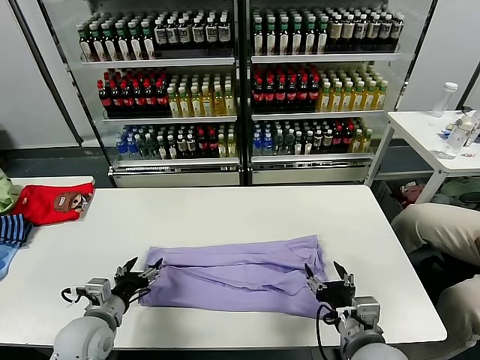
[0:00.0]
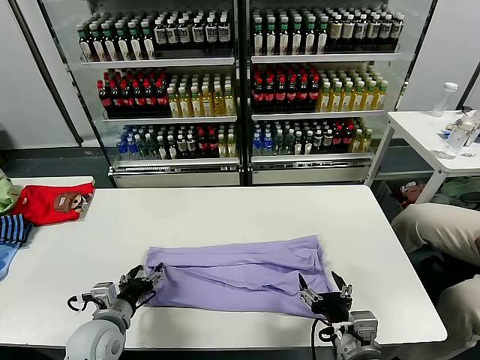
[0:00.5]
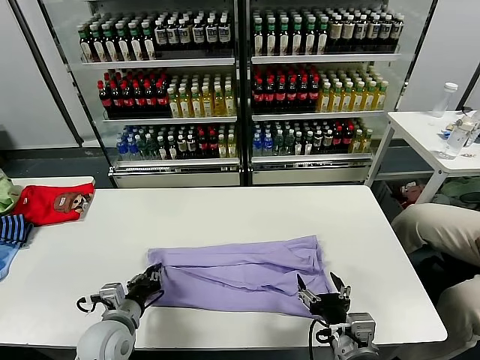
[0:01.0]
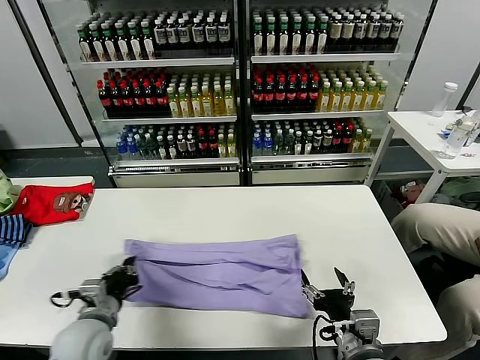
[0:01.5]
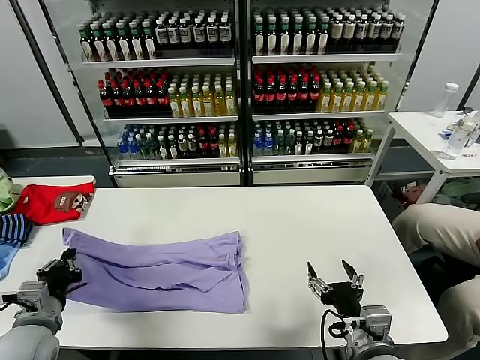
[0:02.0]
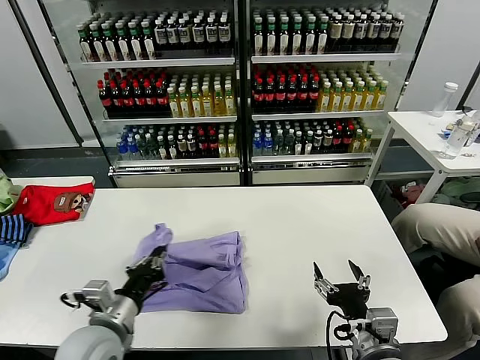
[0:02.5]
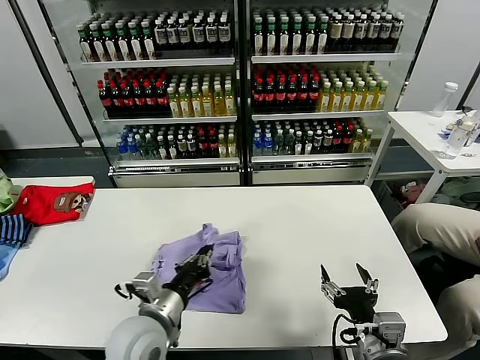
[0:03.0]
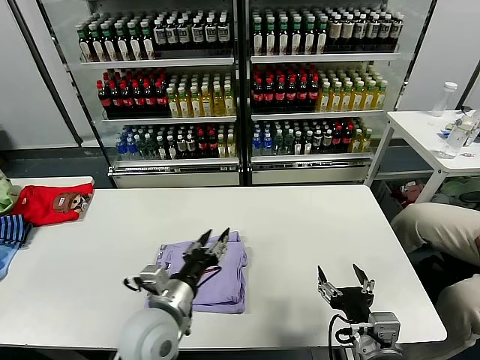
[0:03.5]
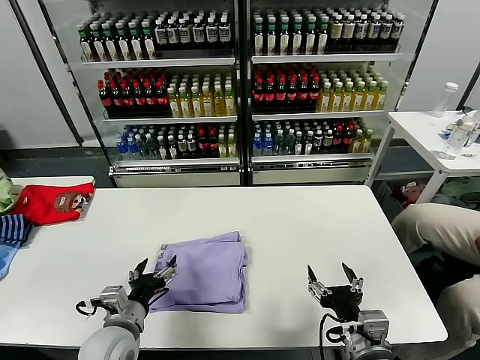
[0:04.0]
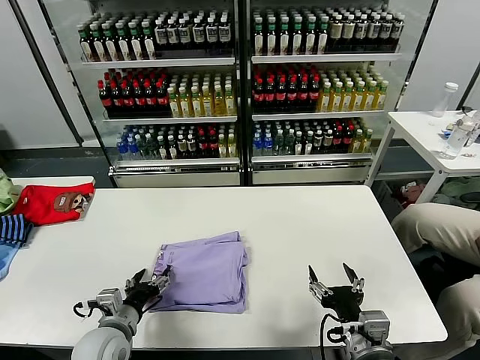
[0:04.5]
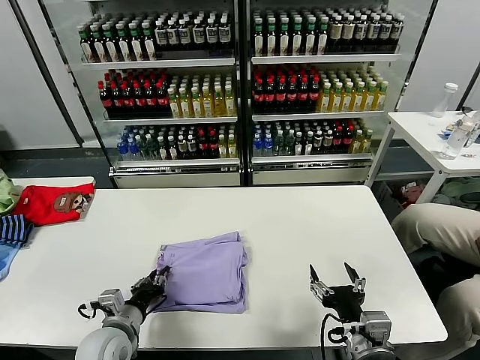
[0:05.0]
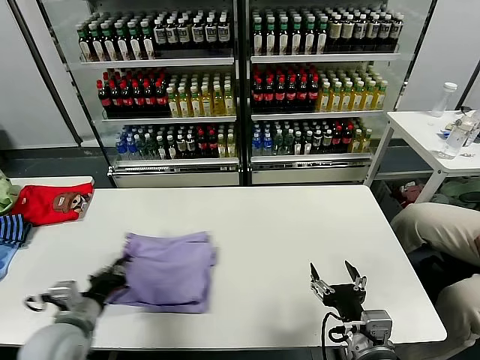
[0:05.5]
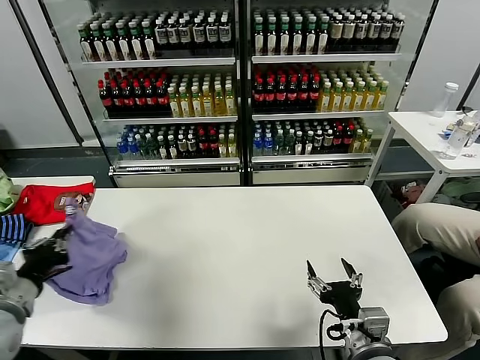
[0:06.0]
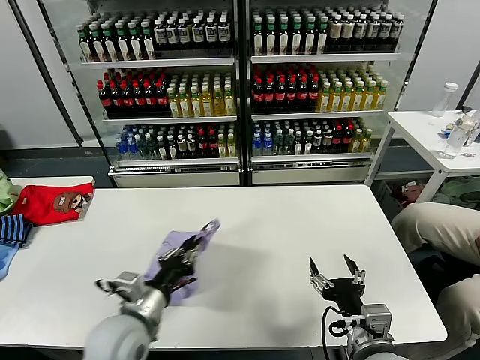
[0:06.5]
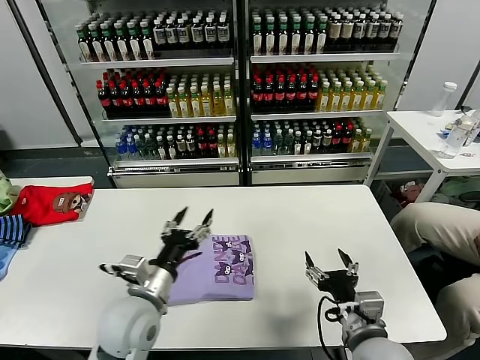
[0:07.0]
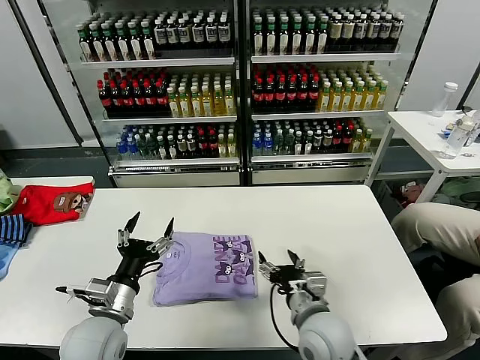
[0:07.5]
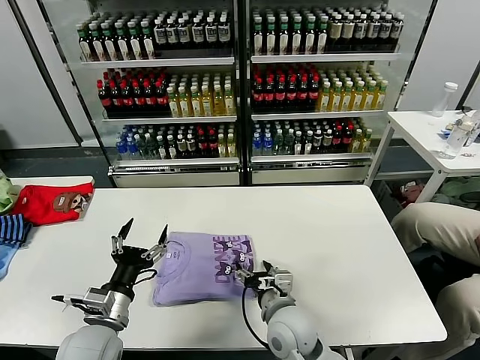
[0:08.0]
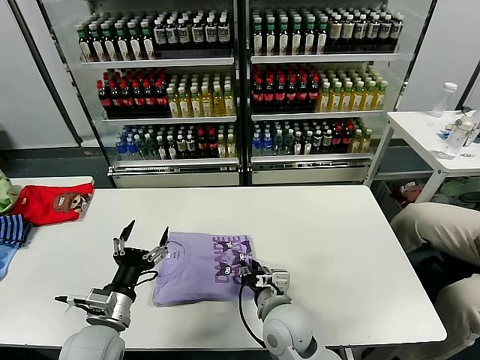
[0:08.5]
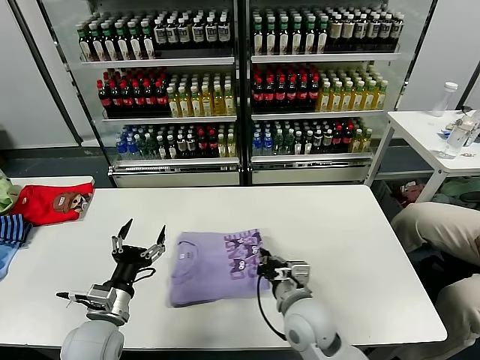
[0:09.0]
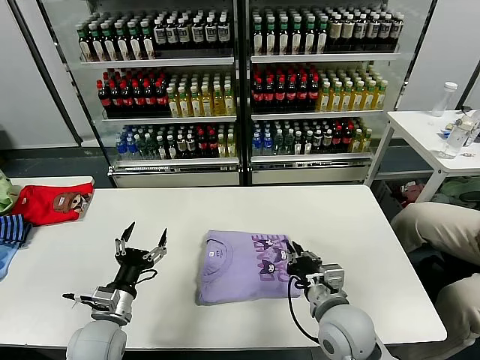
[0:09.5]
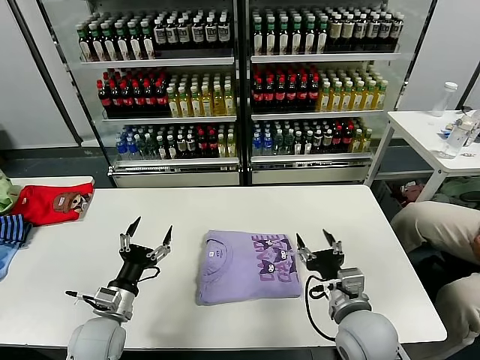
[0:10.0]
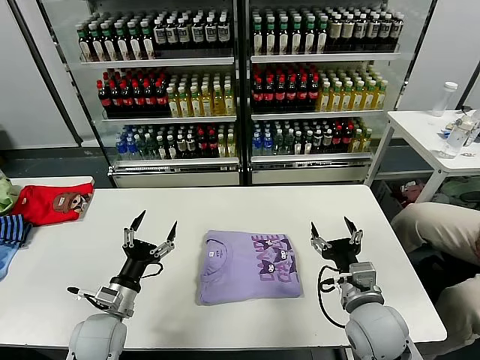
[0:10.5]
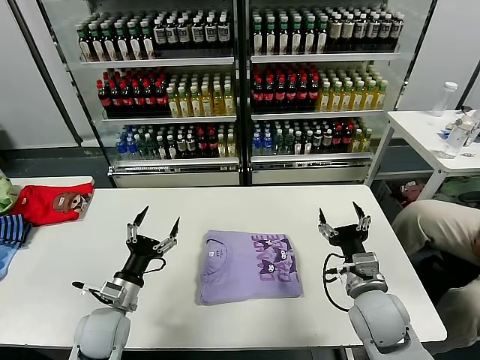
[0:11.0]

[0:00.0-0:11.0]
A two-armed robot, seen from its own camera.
Task of the whole recording: fold and organize the clothes.
Step, 0.0 to 1.0 s: use the left gripper to clamp the left edge of the fabric.
Step, 1.5 to 3.5 s: use the left gripper to drag the left edge of the fabric to the left and folds it over the right edge.
Step, 4.0 to 7.0 s: Flip the folded clothes over with left gripper.
Step, 7.5 to 10.0 s: Drag the clothes to the center of the table.
0.0 to 2.0 s: The left gripper goes approximately 10 cm to the left and upward, and closes.
2.0 to 3.5 s: The left gripper heads to the right, covering some 20 cm, and opens.
3.5 to 5.5 s: The left gripper goes about 15 cm to the left, and closes.
5.5 to 7.5 s: The left gripper moves left and right over about 20 cm, changing direction 2 times, and opens up. Meanwhile the right gripper travels forward and to the left by some 10 cm.
7.5 to 9.0 s: The right gripper closes its fingers.
9.0 to 11.0 s: The right gripper travels to the right by about 15 cm, and opens its fingers. Meanwhile the left gripper ends up approximately 5 cm from where it was.

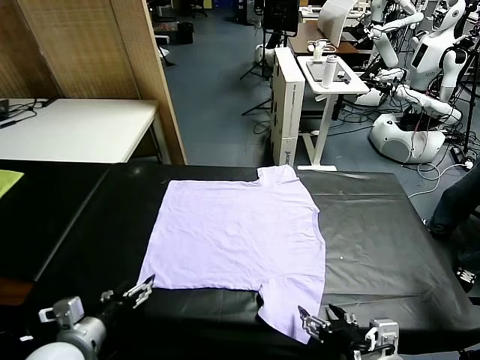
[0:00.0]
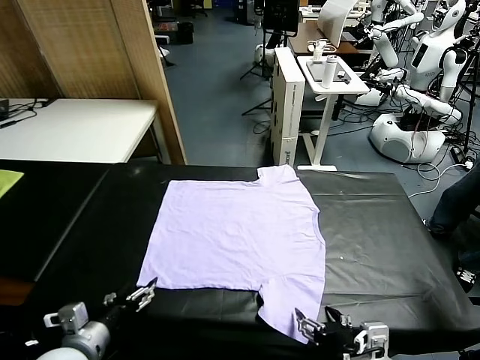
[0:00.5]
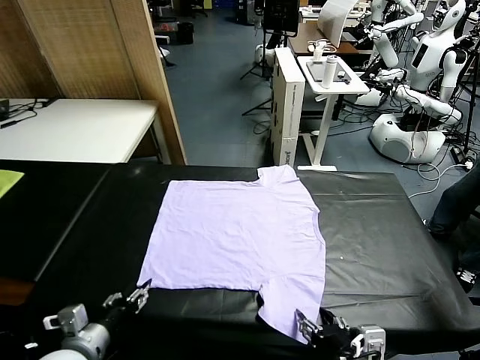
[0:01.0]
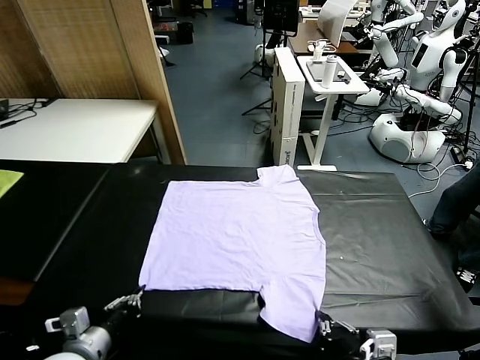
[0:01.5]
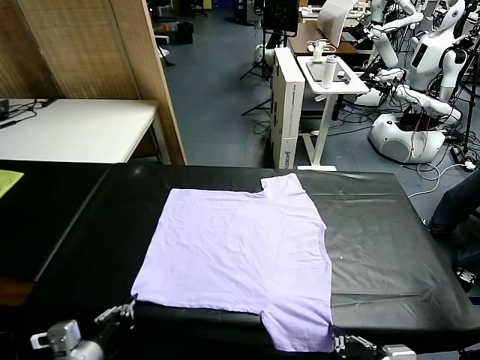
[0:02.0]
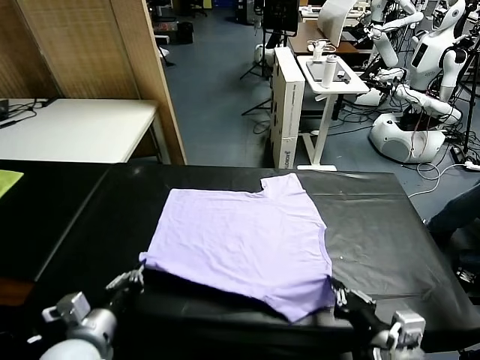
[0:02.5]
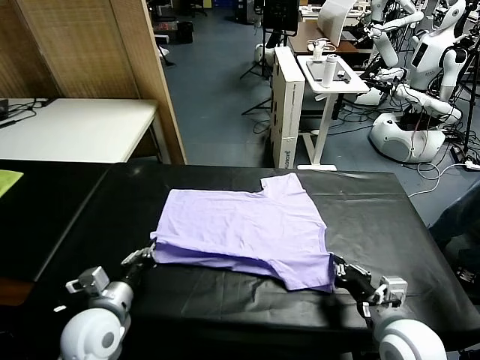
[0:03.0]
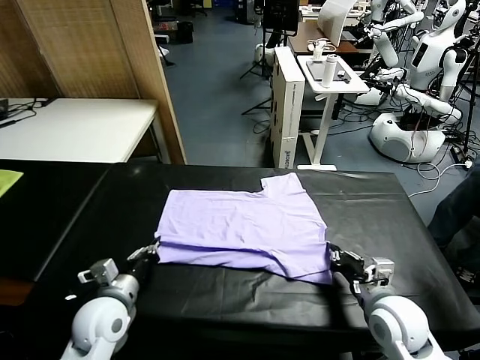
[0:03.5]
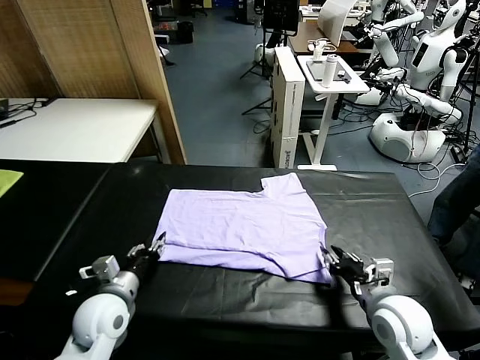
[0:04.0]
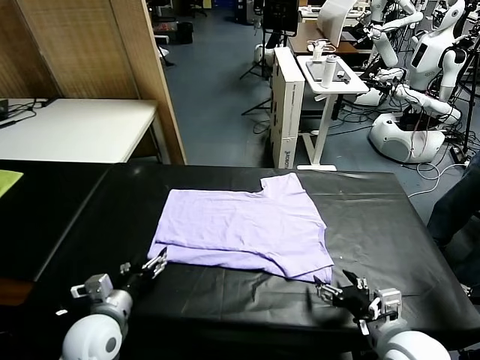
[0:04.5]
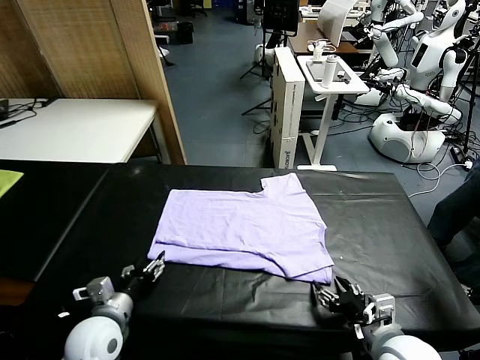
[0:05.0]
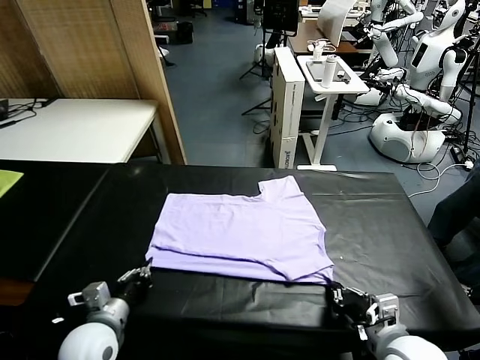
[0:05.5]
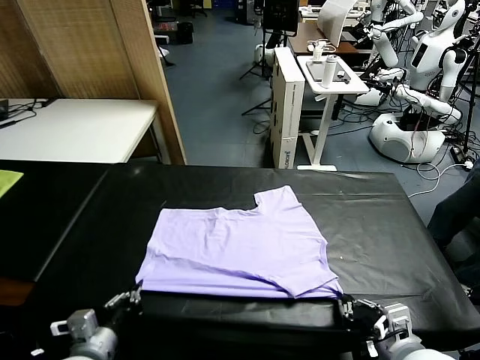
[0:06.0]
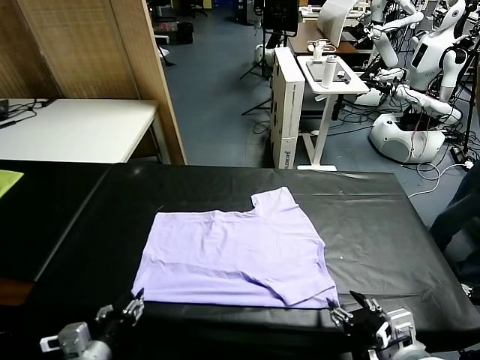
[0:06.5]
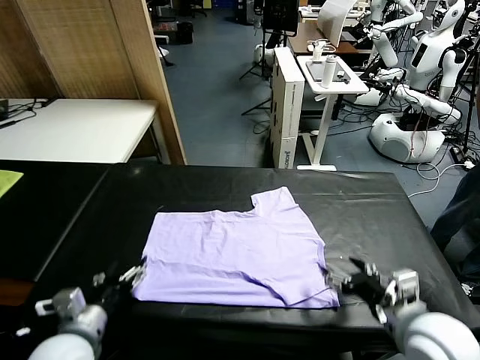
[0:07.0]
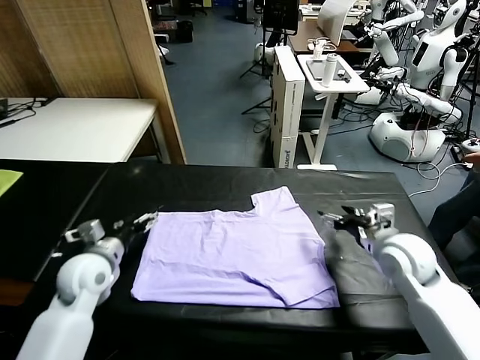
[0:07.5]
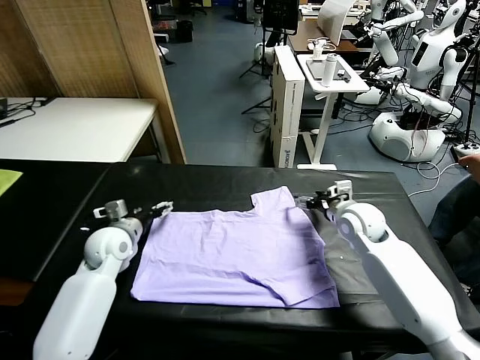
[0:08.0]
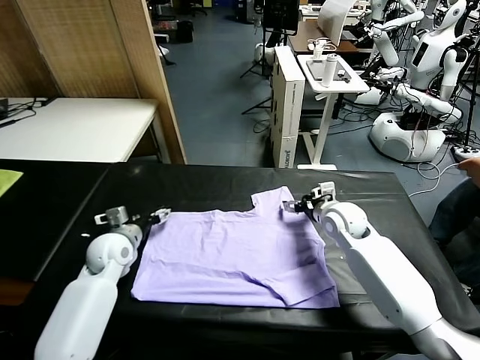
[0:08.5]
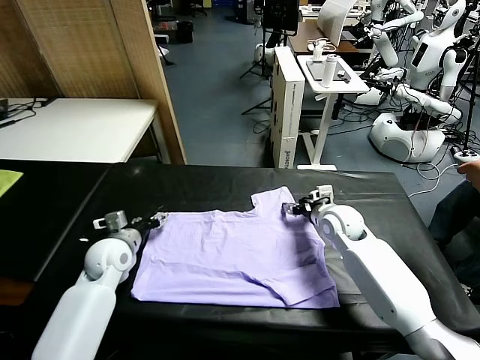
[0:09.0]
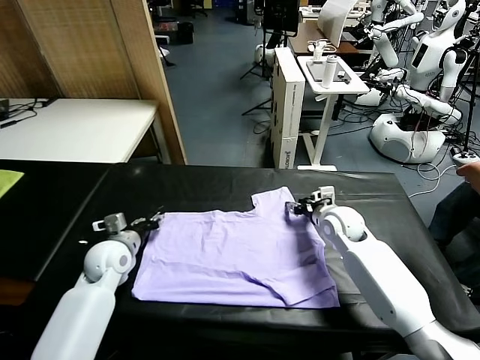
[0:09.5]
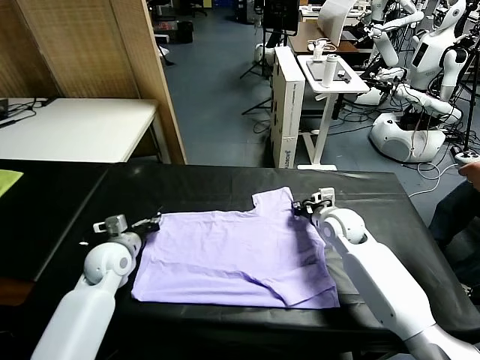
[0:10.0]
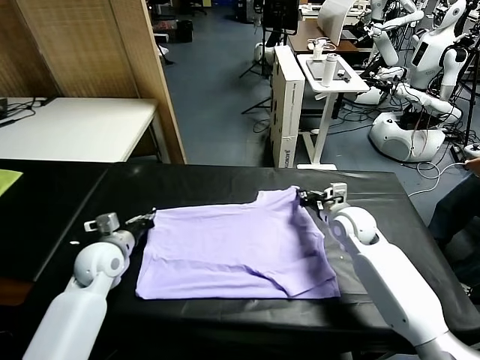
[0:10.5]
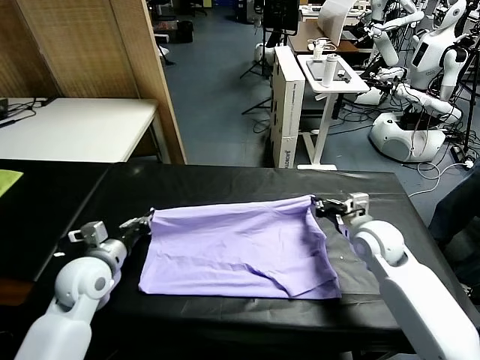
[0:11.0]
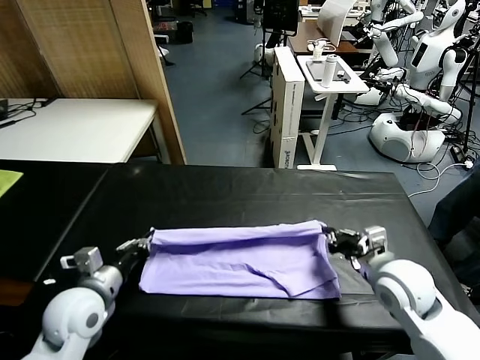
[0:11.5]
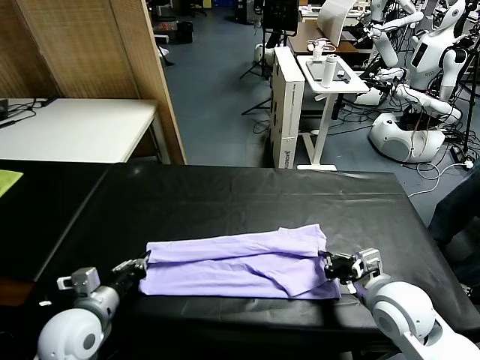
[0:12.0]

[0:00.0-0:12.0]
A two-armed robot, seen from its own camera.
Task of the whole recording: fold and organize the clothes.
Step, 0.0 to 1.5 s: use both grippers simultaneously to clamp the lower edge of the clothing fabric.
Step, 2.0 to 4.0 s: use both grippers to drag the lower edge of the fabric forward and fold it over the upper edge.
Step, 4.5 to 6.5 s: Drag the clothes downward with both gripper.
Step, 7.0 to 10.0 s: use both grippers simultaneously to clamp the upper edge of the clothing fabric.
2.0 to 4.0 s: The two grippers go roughly 10 cm forward. The left gripper opens up; the right gripper opens up.
4.0 to 6.0 s: The left gripper moves backward, approximately 10 cm, and closes. Meanwhile the right gripper heads backward, covering some 5 cm, and closes up.
6.0 to 8.0 s: The two grippers go approximately 30 cm forward. The right gripper opens up. The left gripper opens up.
8.0 to 10.0 s: The right gripper closes its fingers, while the left gripper closes up.
10.0 to 12.0 s: Both grippers move backward, some 20 cm.

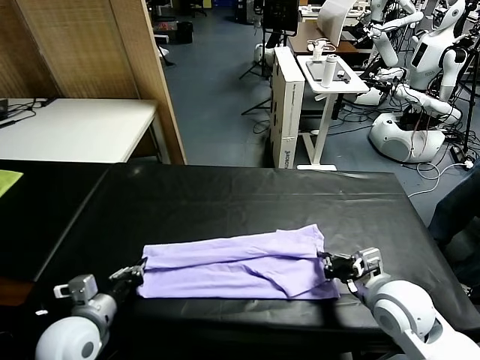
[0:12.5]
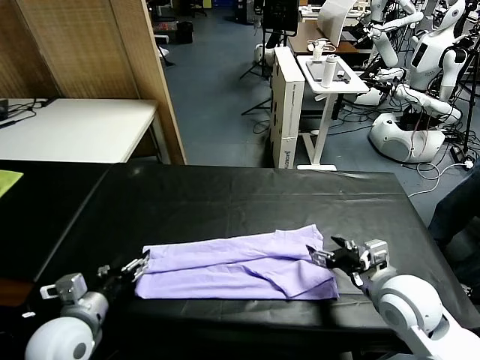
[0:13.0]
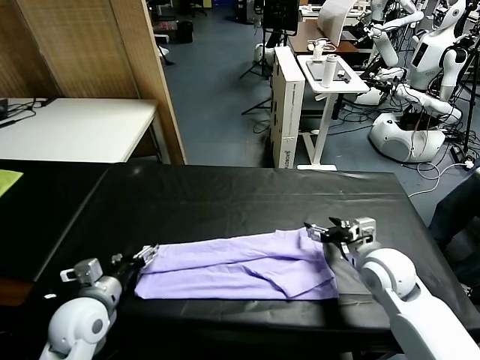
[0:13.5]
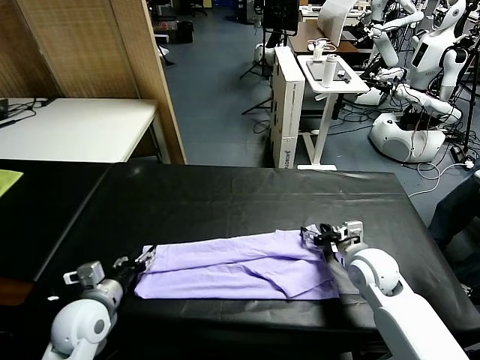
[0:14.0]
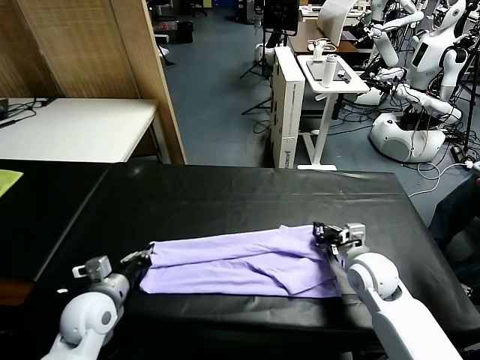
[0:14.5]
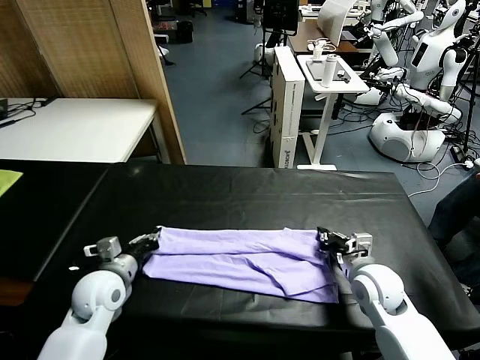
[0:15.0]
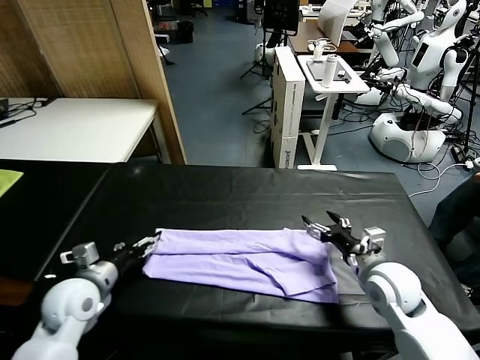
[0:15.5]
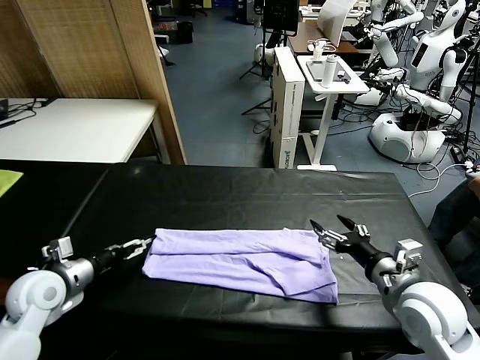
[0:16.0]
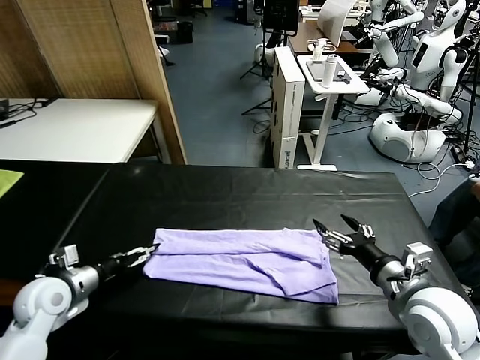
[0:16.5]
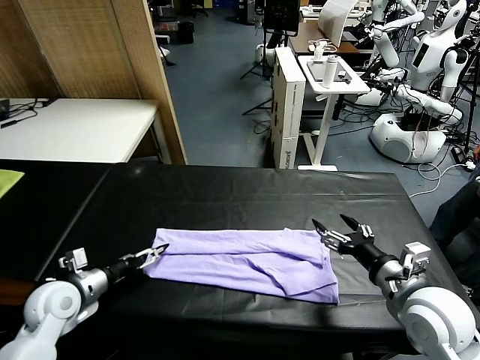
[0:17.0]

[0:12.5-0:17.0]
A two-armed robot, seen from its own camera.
Task of the whole recording: fold and organize the clothes.
12.5 to 14.5 s: The right gripper travels forward and downward by some 10 cm, and opens, then closes once more. Meanwhile the left gripper shifts approximately 5 cm forward, and opens and closes again.
14.5 to 17.0 s: The right gripper shifts roughly 15 cm backward and upward, and opens its fingers, while the left gripper travels to the left by some 10 cm, and opens.
